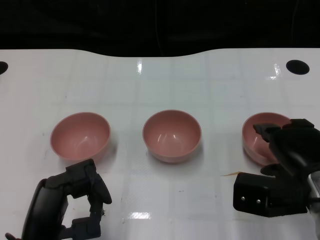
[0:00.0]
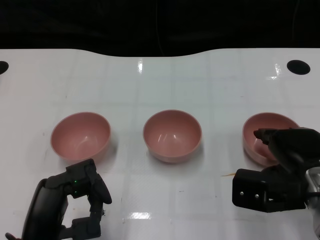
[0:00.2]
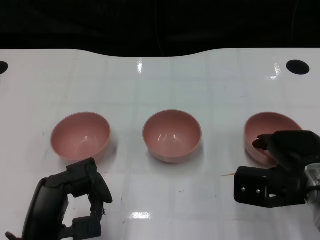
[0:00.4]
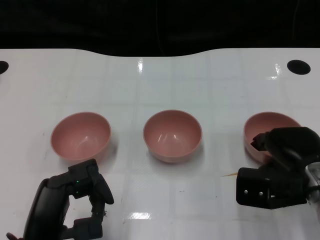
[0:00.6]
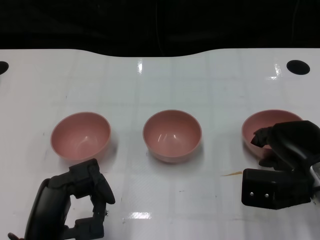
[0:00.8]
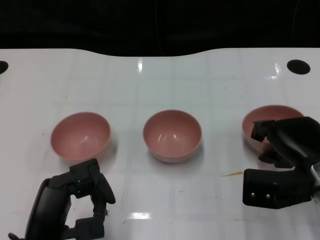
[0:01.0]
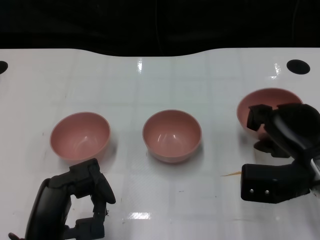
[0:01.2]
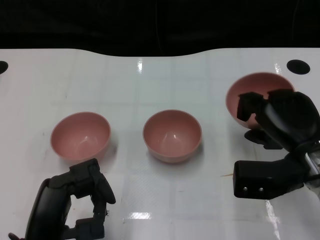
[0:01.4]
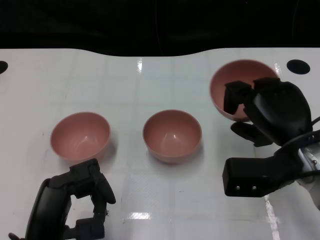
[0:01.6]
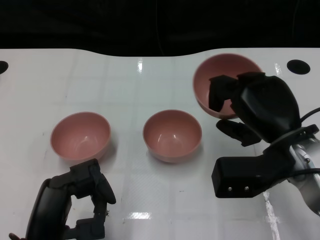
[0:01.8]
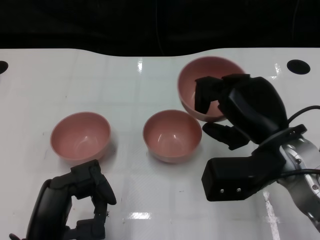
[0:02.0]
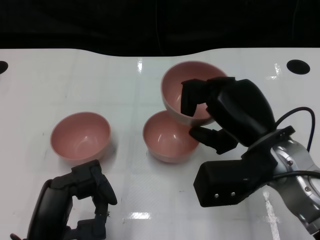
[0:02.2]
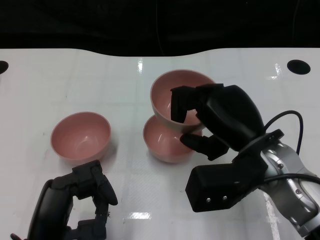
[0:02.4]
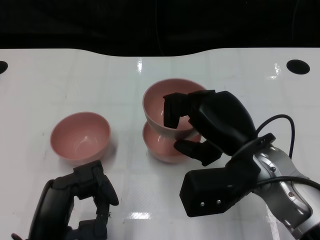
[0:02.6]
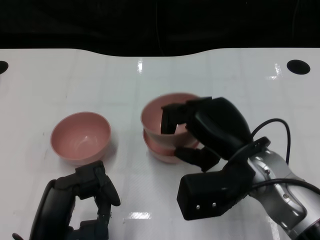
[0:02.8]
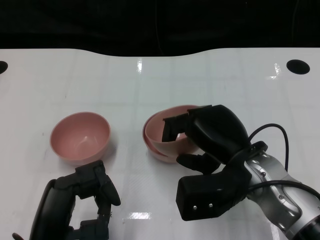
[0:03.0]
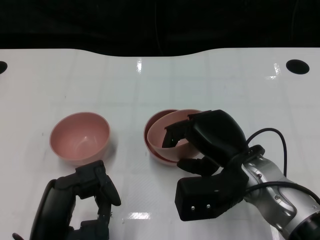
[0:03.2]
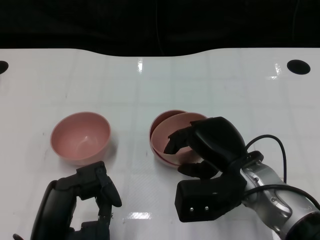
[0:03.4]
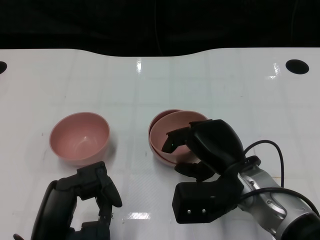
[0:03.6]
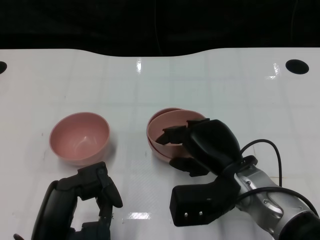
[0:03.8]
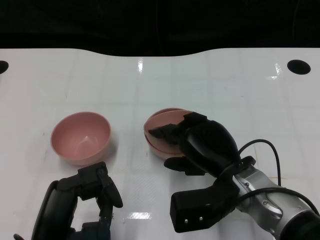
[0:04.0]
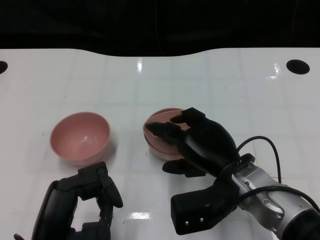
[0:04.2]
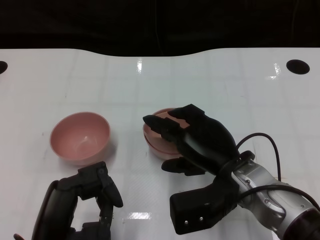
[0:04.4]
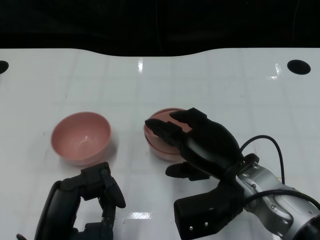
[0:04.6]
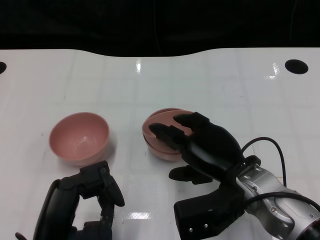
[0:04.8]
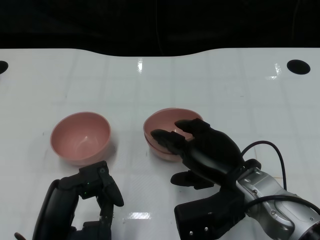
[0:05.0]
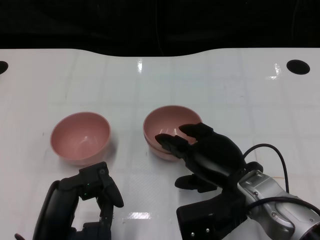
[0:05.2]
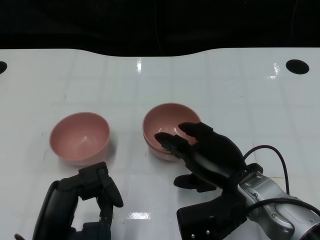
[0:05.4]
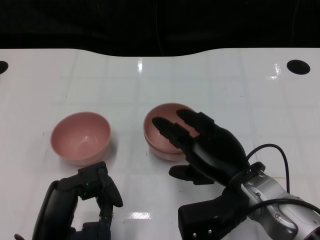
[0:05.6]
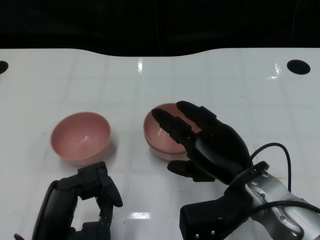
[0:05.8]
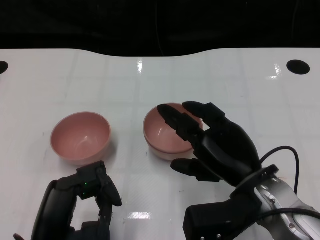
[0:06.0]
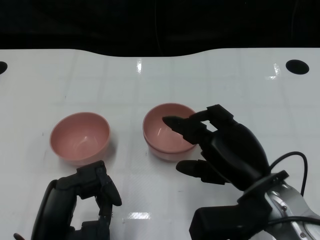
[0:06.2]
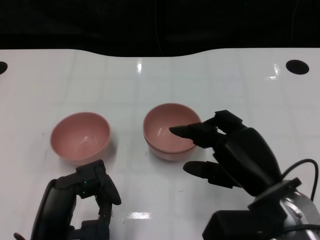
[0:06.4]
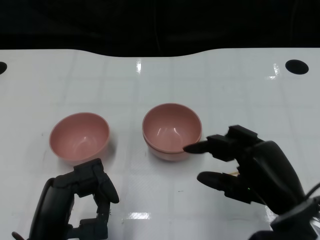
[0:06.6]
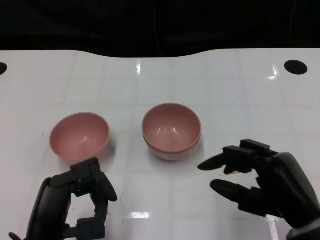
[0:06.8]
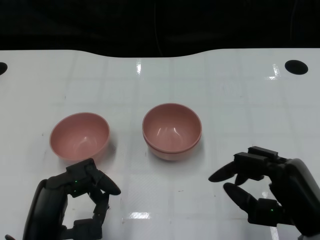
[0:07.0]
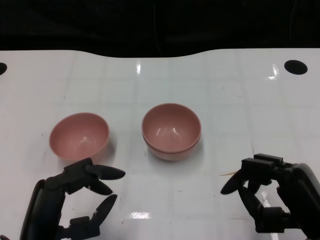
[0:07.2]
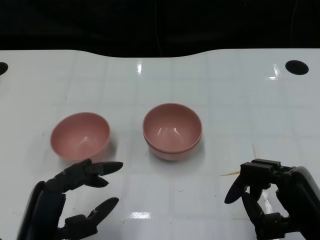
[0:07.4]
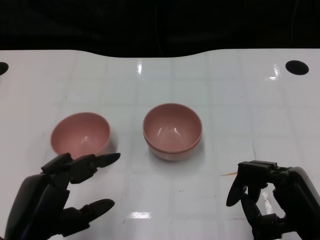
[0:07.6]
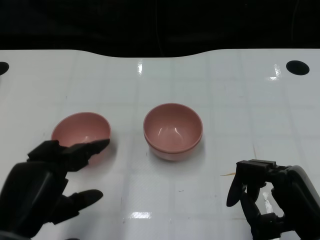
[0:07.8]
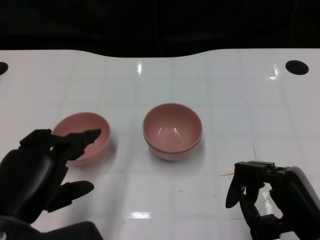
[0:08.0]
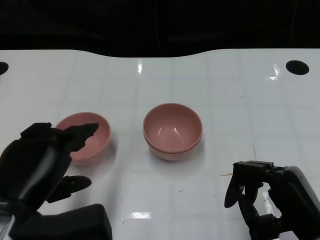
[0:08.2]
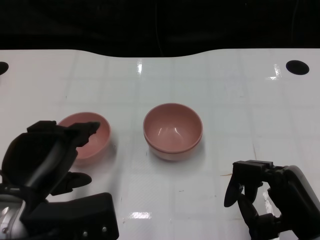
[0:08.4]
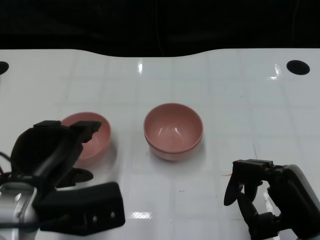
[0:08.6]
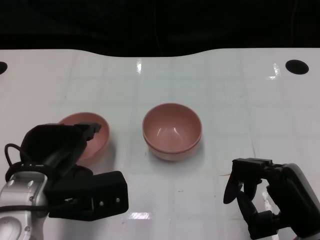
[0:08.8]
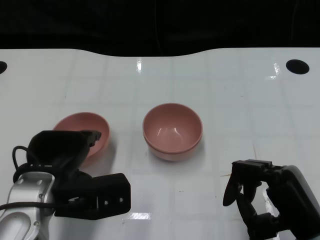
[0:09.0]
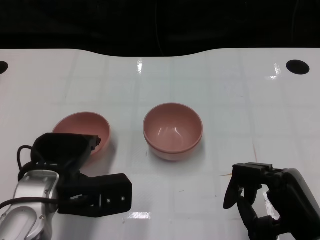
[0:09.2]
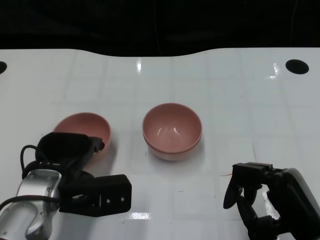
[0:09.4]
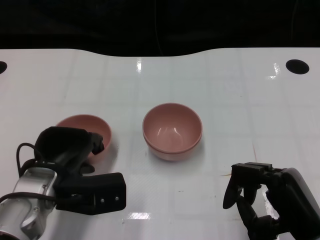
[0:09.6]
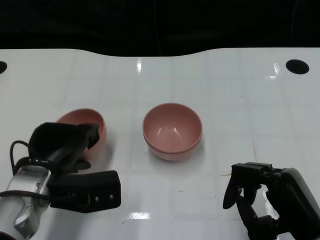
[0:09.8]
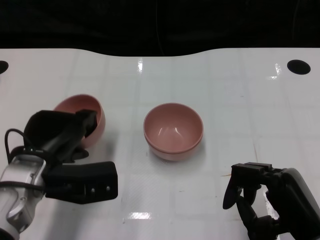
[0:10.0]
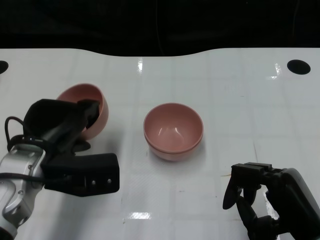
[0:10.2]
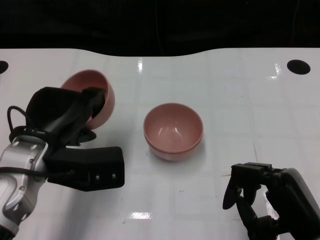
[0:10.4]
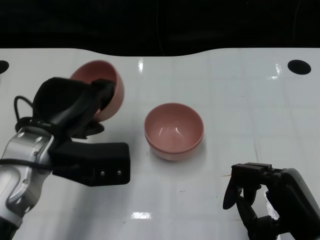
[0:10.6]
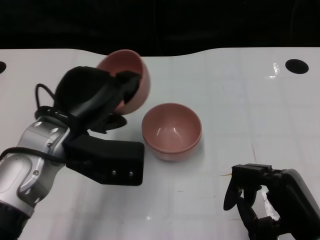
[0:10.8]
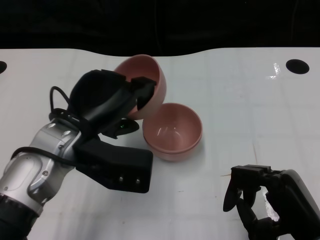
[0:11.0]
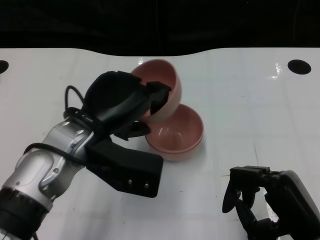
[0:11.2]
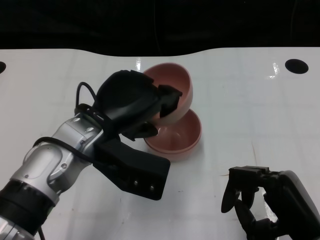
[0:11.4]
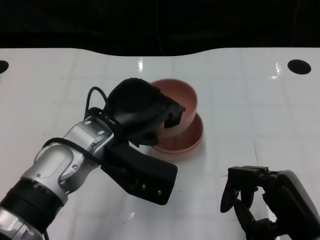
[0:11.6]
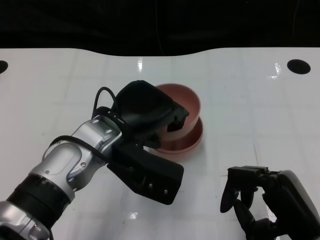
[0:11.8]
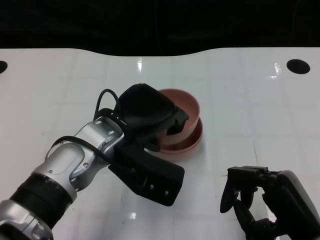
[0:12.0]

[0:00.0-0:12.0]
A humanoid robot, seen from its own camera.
Task of the whole recording: Pick up the bowl on one side of the table and place it on top of the middle bowl, then pick up the bowl on the other side of the table and place it on top of the middle bowls.
Step, 0:01.2 to 0:06.2: Place the bowl on the right onto the bowl in the middle with right gripper.
Step, 0:06.4 to 0:09.8: Grasp the bowl on the left with the left gripper.
0:01.6 to 0:03.0: The right hand heads to the left, covering about 5 cm.
0:03.0 to 0:06.0: The hands stay close to where they were, moving slightly.
0:06.0 to 0:07.6: The right hand shifts approximately 10 cm to the right and backward.
0:07.6 to 0:09.0: The left hand shifts approximately 10 cm forward.
0:09.0 to 0:10.4: The hands make only small movements.
0:10.4 to 0:12.0: The left hand goes roughly 10 cm to the right.

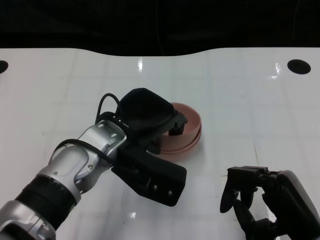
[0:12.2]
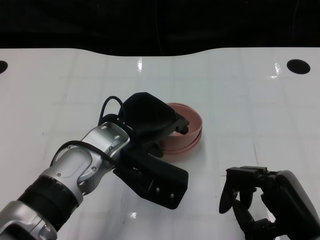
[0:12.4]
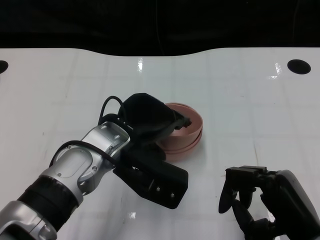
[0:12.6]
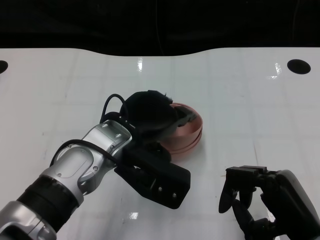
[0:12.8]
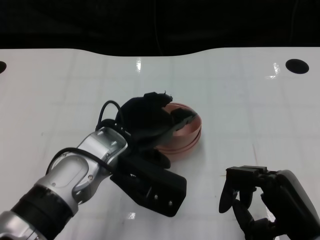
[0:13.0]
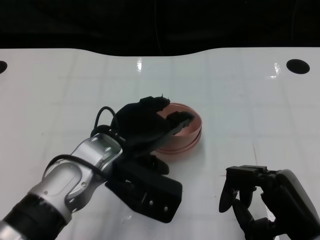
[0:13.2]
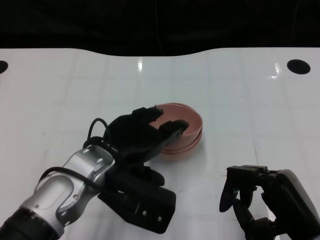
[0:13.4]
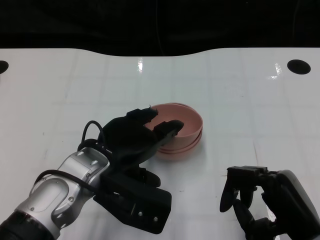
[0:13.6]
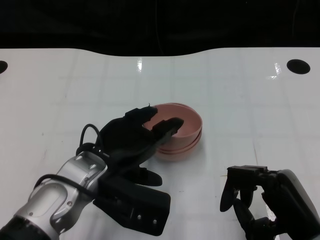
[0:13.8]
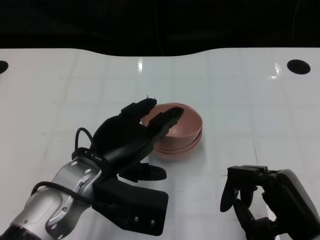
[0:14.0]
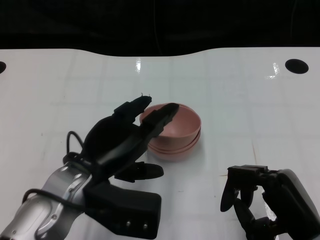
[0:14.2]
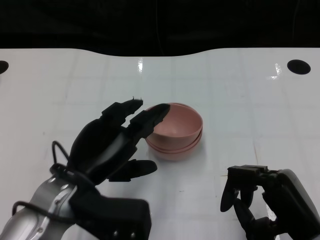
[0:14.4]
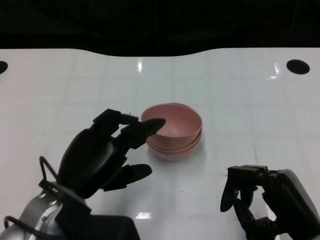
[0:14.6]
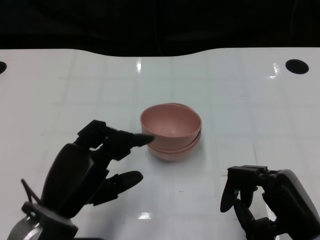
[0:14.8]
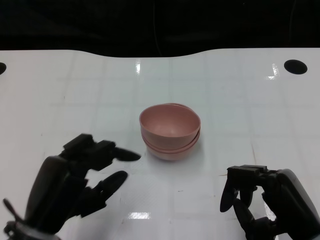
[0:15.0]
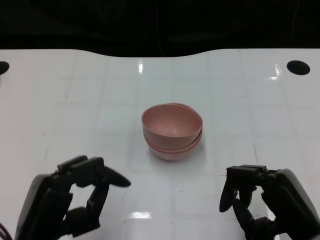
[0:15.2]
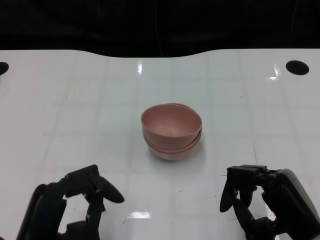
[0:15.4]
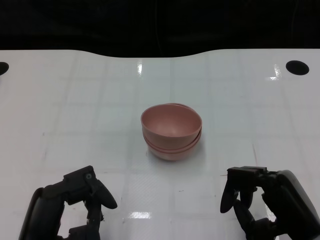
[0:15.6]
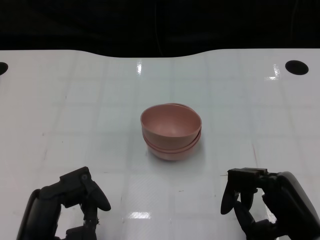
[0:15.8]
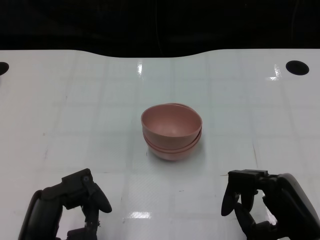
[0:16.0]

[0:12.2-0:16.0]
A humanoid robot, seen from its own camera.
Task of the whole recording: Pick up the bowl on one side of the table and place it on top of the middle bowl, then pick up the bowl on the other side of the table and place it on top of the middle bowls.
0:12.2 to 0:13.4: There are only small adjustments of the hands.
0:13.4 to 0:14.8: The left hand goes about 10 cm backward and to the left.
0:14.8 to 0:16.0: The left hand is displaced backward by about 5 cm.

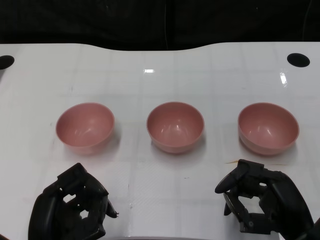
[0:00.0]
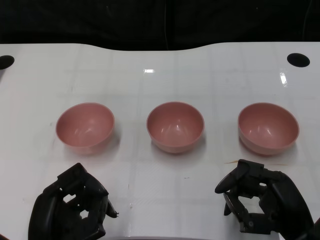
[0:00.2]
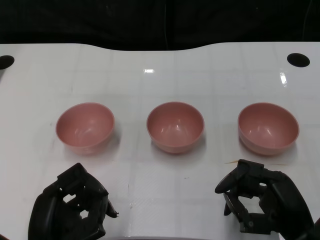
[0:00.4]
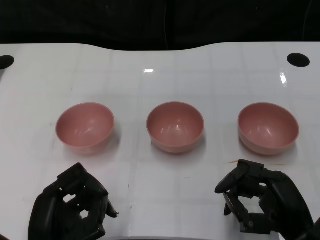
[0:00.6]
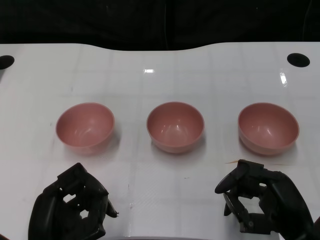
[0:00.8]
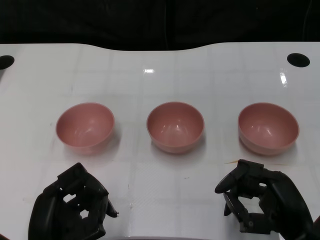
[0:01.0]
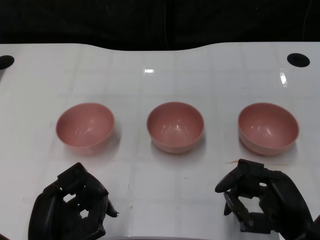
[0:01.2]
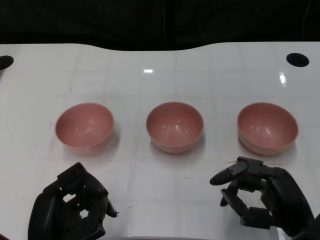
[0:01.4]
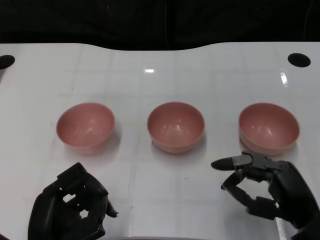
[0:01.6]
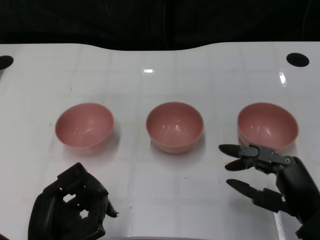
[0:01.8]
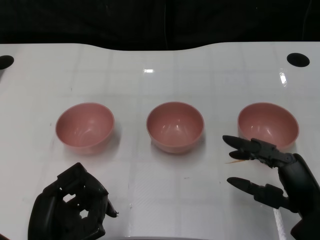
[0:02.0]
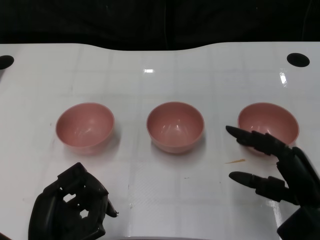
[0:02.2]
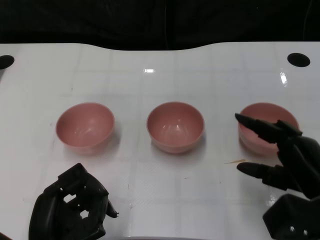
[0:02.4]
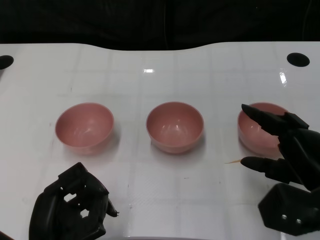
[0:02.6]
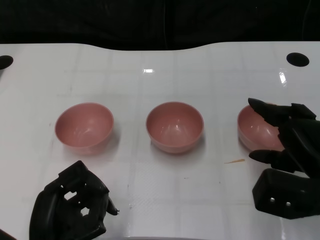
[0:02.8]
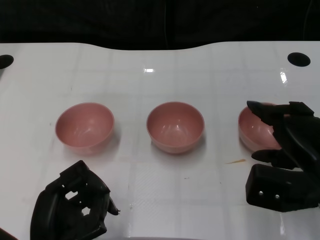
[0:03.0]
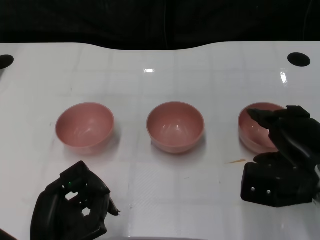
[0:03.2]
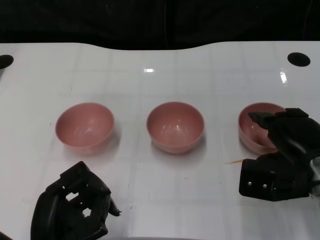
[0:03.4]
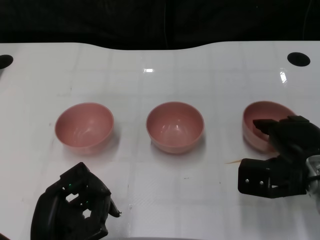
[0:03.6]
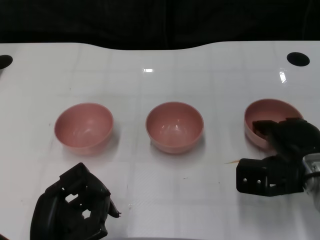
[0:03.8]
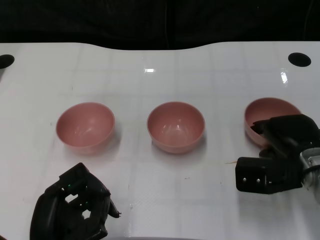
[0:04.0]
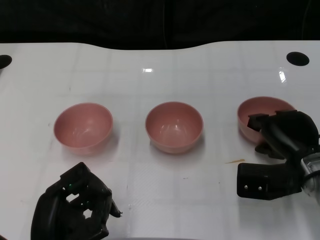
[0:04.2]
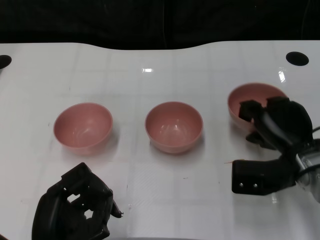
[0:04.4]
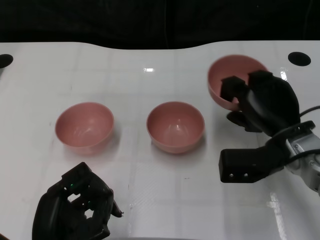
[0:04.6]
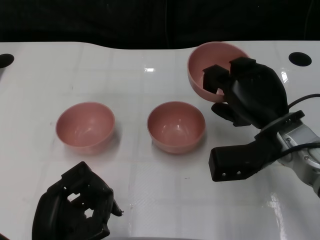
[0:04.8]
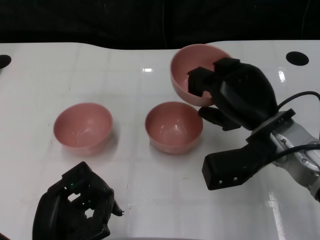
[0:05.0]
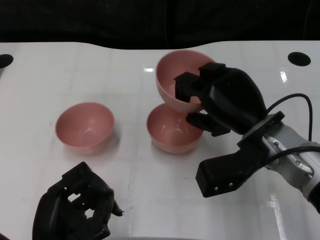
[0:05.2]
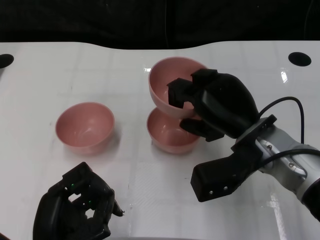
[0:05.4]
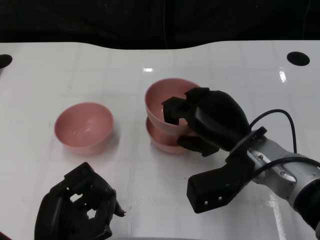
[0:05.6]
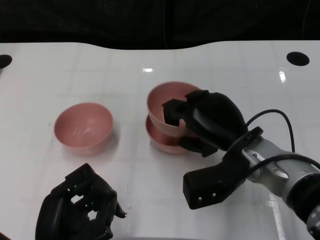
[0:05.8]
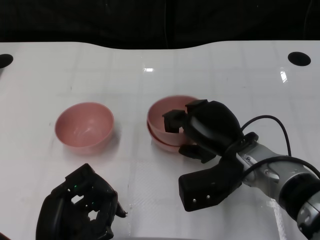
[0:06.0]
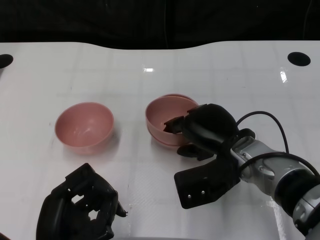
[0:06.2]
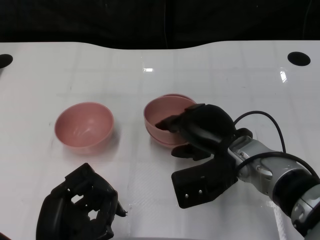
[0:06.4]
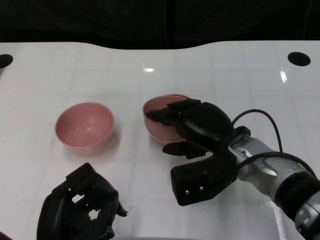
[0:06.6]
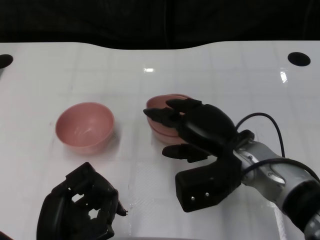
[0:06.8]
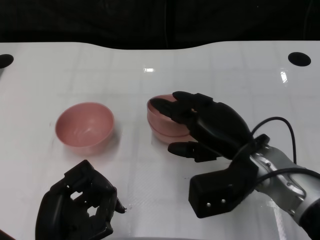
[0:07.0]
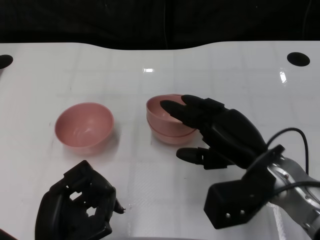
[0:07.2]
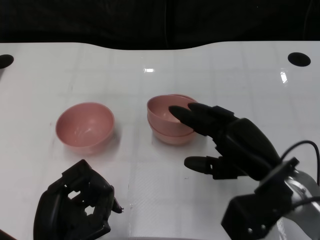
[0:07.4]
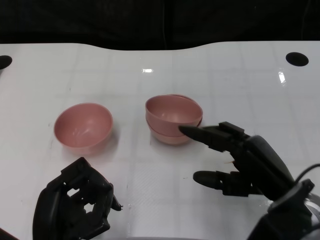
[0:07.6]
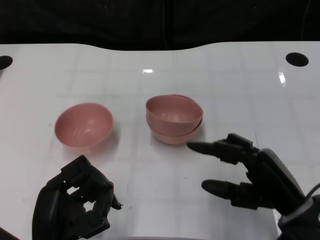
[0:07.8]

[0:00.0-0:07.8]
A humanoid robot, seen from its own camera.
Task of the whole recording: Pick up the bowl on one side of the table and place it on top of the middle bowl, then pick up the bowl on the other side of the table and place it on top of the middle bowls.
Step, 0:01.4 to 0:04.2: Grasp the bowl on the right with the right gripper.
Step, 0:04.4 to 0:07.4: Place the bowl on the right onto the bowl in the middle with right gripper.
0:01.6 to 0:03.2: The right hand travels forward by roughly 5 cm.
0:03.2 to 0:04.6: The right hand moves forward, roughly 5 cm.
0:04.6 to 0:06.2: The right hand is displaced to the left by approximately 5 cm.
0:06.2 to 0:07.8: The right hand shifts about 10 cm backward and to the right.
